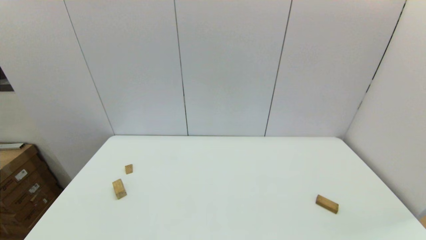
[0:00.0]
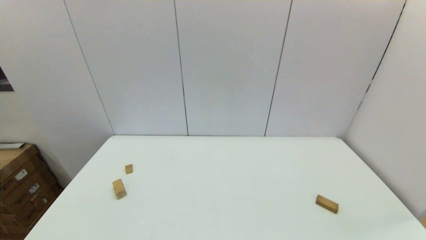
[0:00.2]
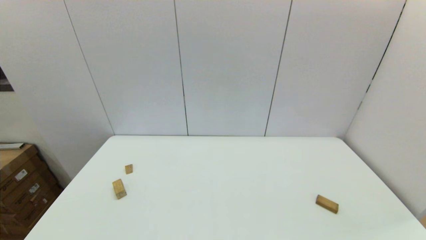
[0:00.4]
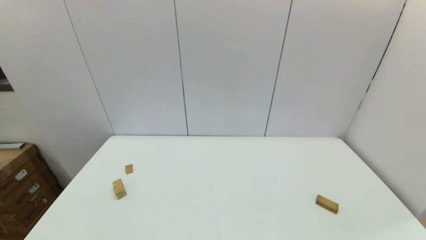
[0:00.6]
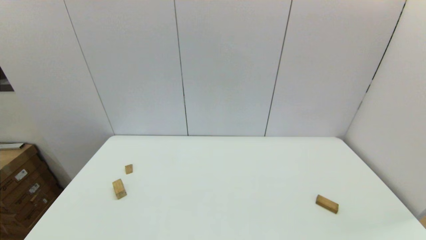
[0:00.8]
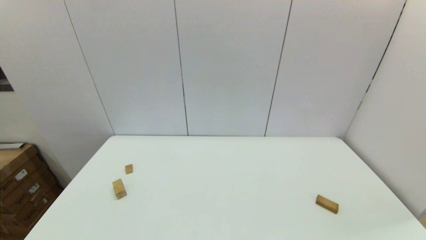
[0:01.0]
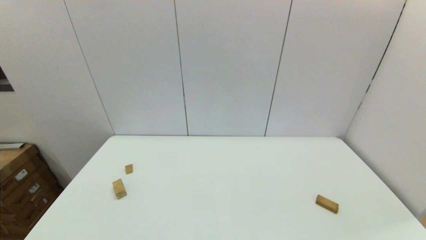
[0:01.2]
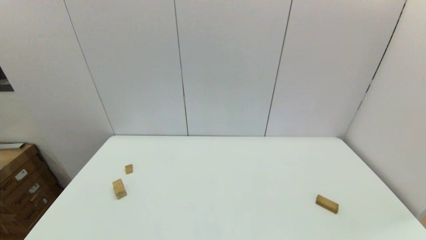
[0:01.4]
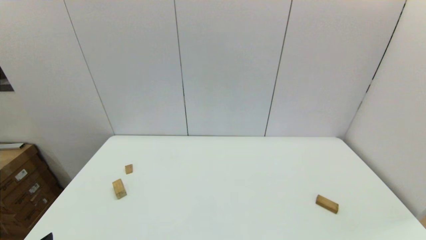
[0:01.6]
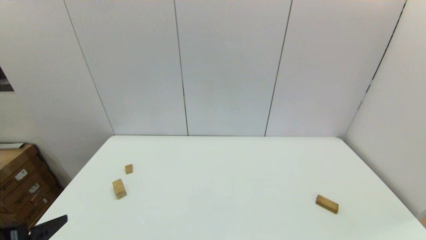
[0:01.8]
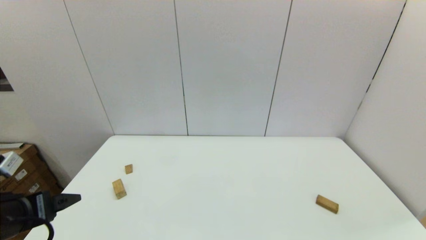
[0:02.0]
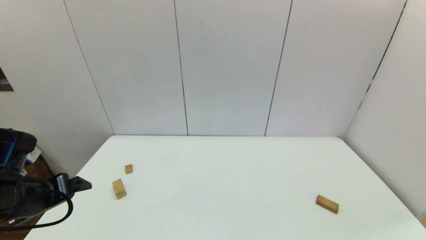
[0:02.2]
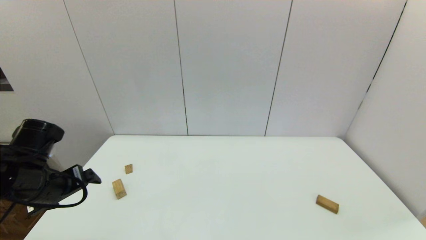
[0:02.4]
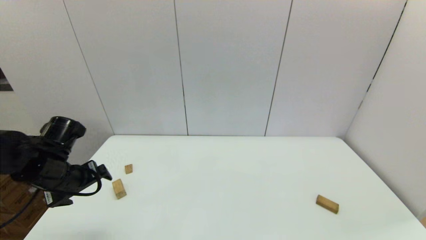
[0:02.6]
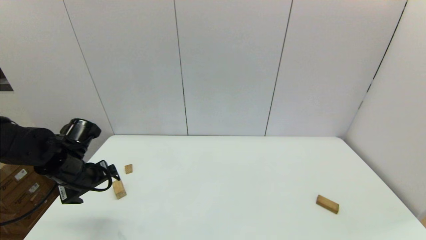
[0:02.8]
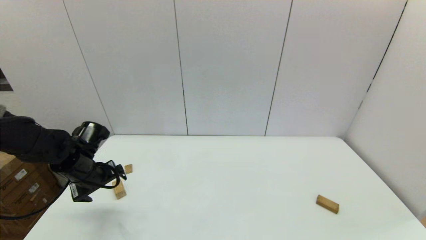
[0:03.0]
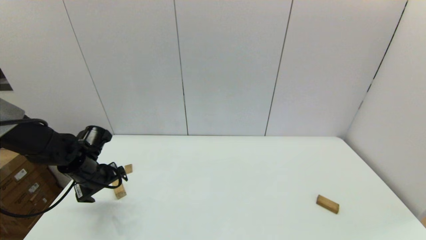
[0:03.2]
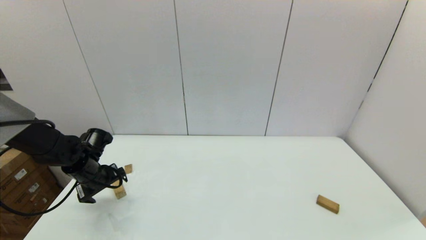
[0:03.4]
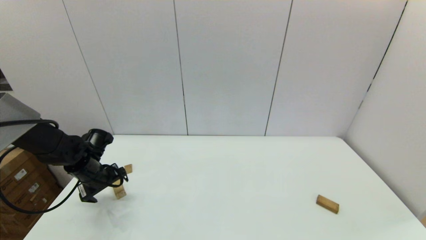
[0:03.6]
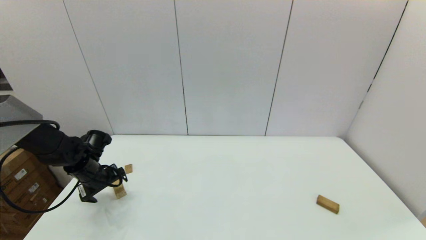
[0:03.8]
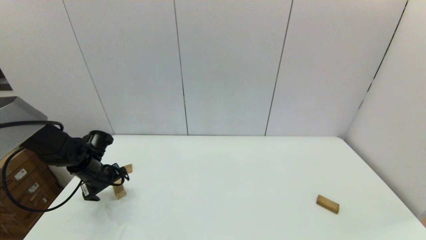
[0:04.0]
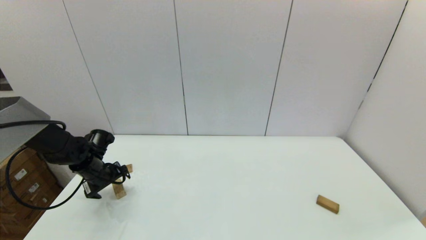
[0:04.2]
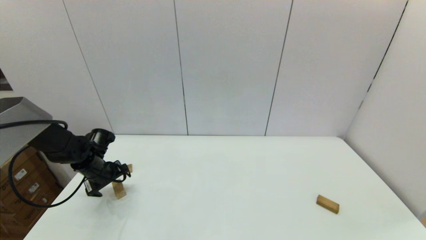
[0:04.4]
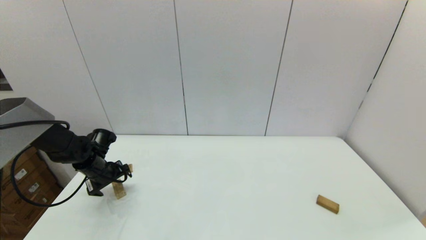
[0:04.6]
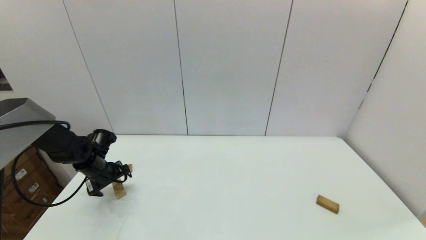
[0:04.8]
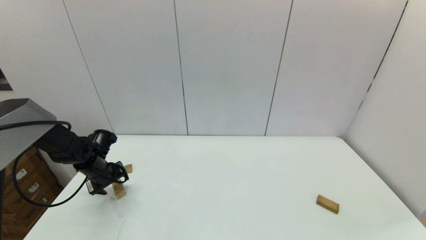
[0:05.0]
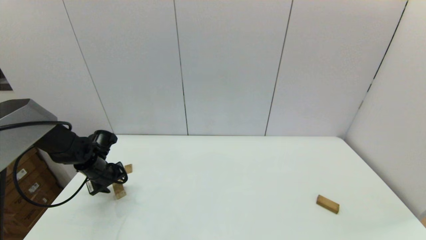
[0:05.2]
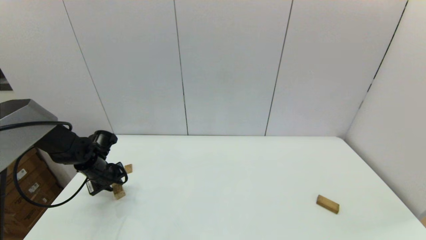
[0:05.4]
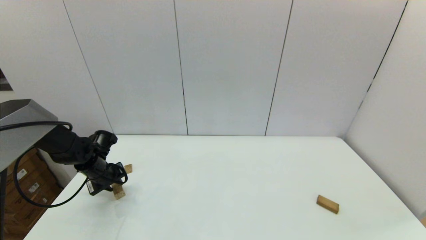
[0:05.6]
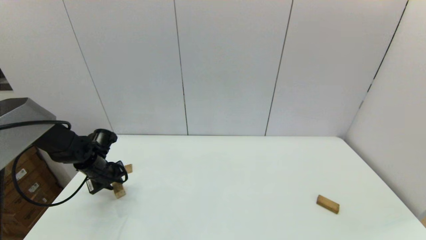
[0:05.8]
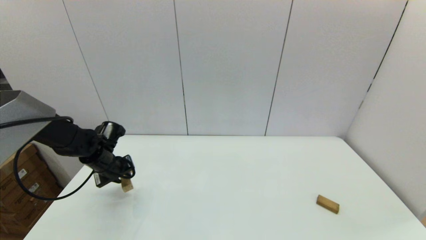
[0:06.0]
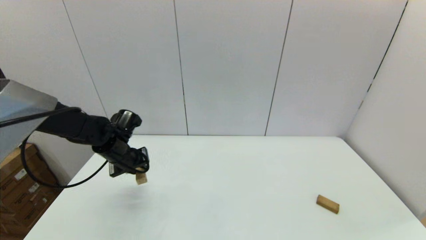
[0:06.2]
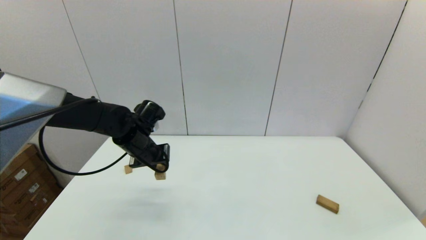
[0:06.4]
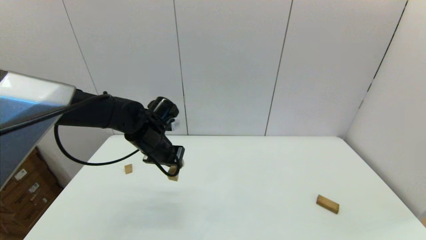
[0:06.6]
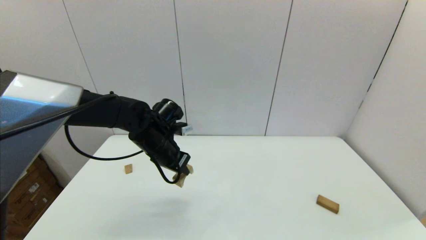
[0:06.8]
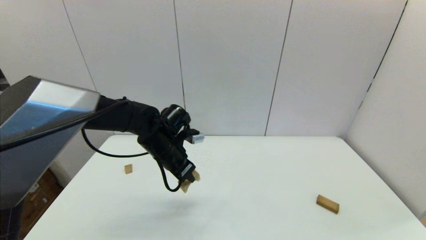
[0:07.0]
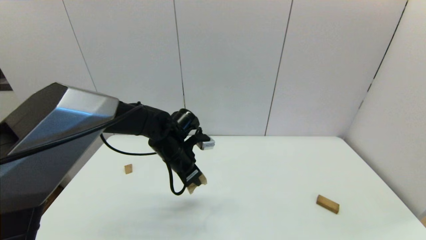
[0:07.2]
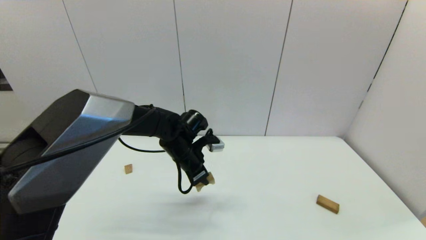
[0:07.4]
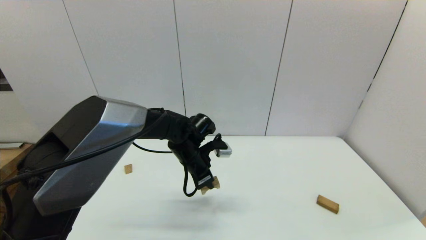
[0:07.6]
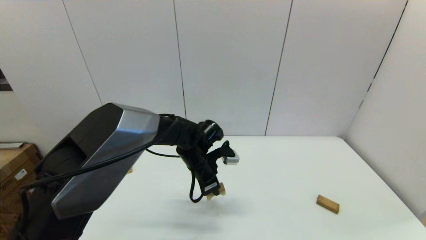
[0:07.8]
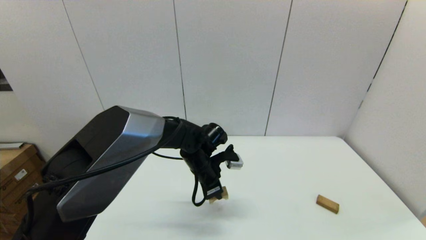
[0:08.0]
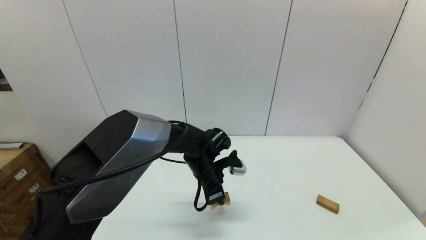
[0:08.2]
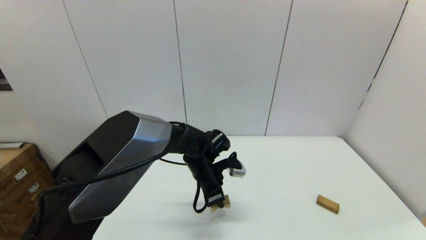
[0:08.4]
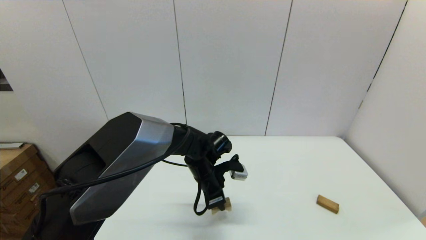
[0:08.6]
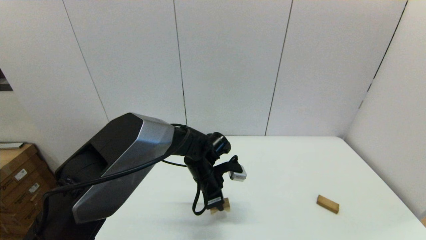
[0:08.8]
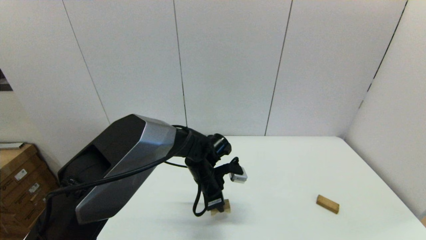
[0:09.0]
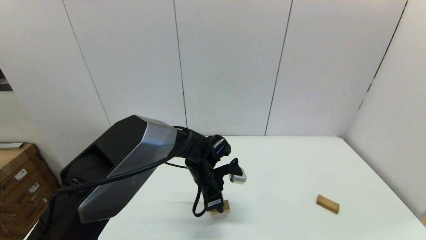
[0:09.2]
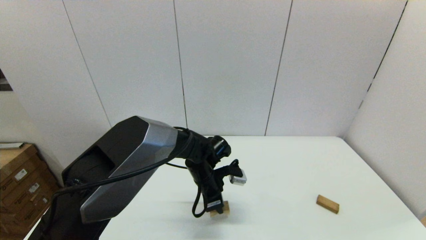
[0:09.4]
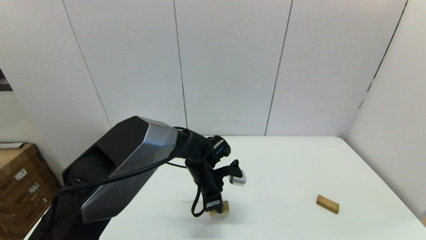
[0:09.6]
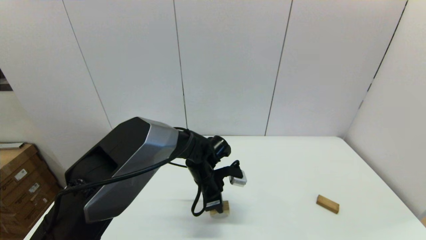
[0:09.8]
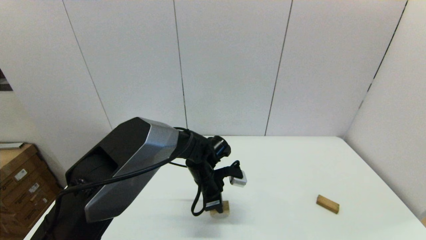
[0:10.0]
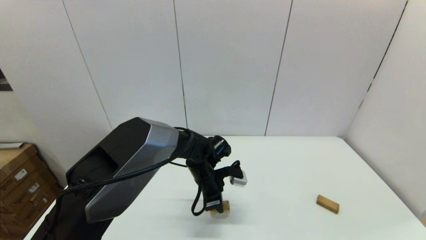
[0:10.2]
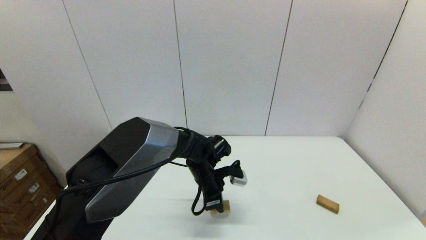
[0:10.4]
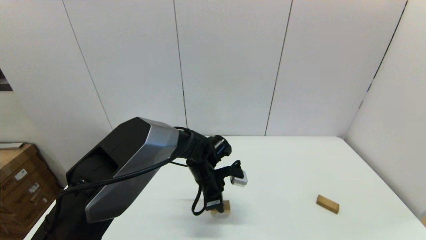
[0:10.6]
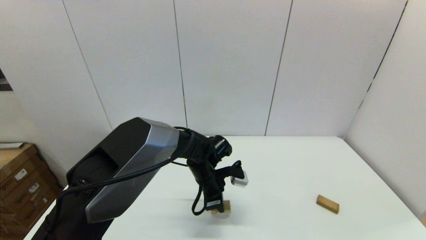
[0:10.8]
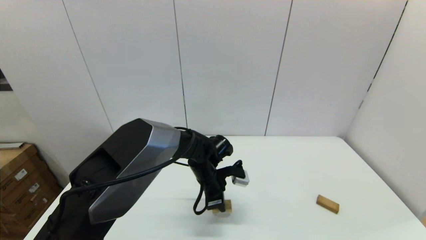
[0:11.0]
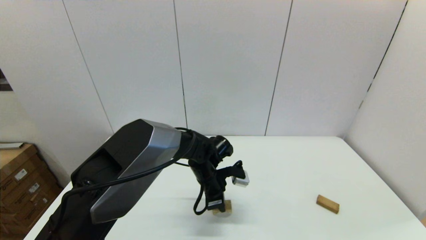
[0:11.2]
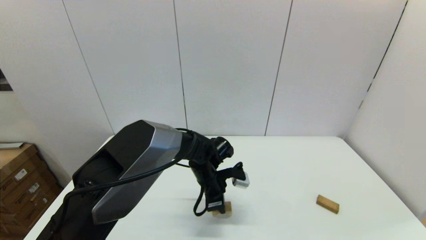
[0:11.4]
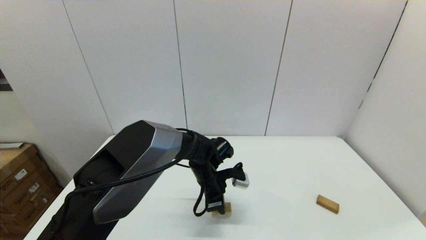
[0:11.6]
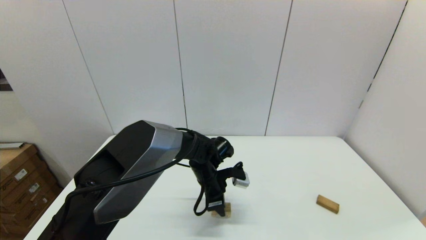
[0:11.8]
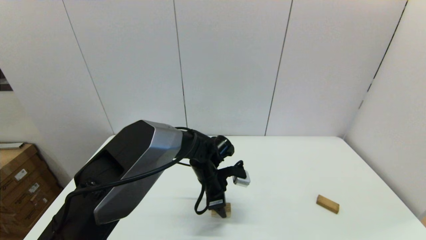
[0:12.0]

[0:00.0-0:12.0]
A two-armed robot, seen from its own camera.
Task of the whole recording: place the arched building blocks in the center of the table, set up the rectangular building blocks, and then set up the triangular building blocks.
Step, 0:01.6 to 0:05.2: Grasp the arch-shaped block with the left gripper.
Step, 0:05.6 to 0:11.8: Place the arch-shaped block in the center of view with the left gripper.
0:01.6 to 0:03.0: The left gripper travels forward by approximately 25 cm.
0:03.0 to 0:04.4: The left gripper is displaced downward and forward by about 10 cm.
0:04.4 to 0:06.0: The left gripper closes.
0:06.0 to 0:07.6: The left gripper travels to the right by some 25 cm.
0:07.6 to 0:09.0: The left gripper moves some 5 cm.
0:09.0 to 0:10.4: There are only small adjustments of the grippers.
0:10.4 to 0:12.0: The left gripper opens.

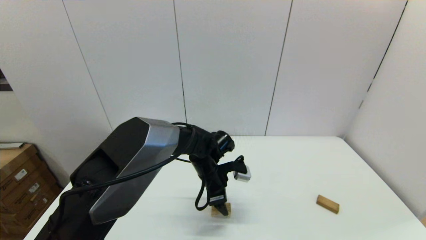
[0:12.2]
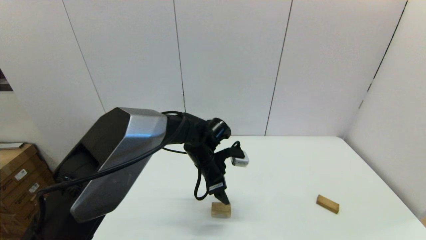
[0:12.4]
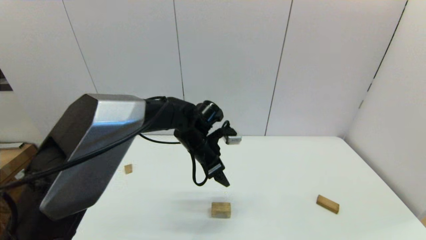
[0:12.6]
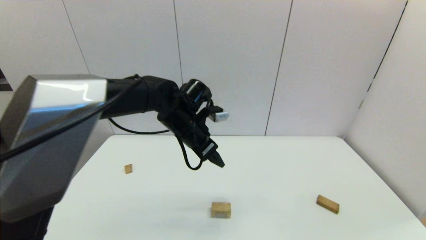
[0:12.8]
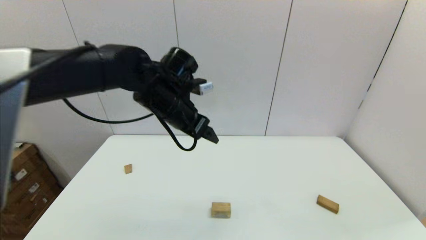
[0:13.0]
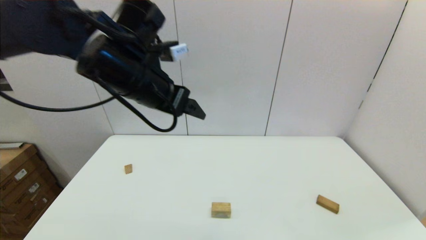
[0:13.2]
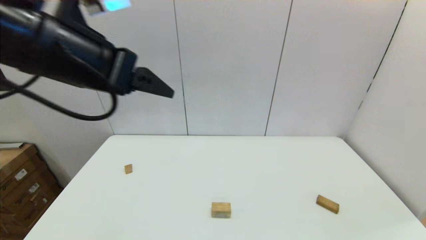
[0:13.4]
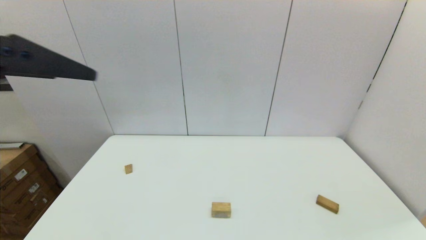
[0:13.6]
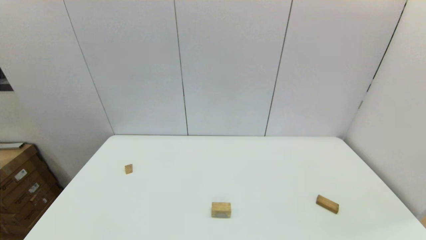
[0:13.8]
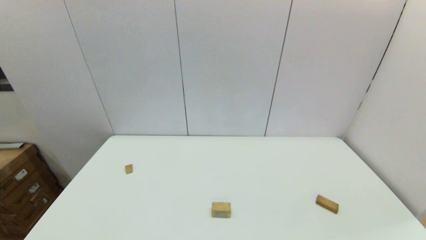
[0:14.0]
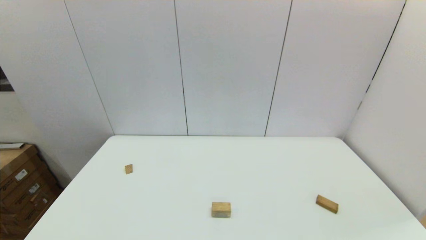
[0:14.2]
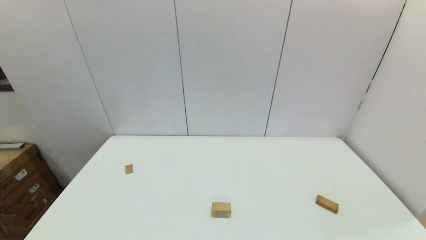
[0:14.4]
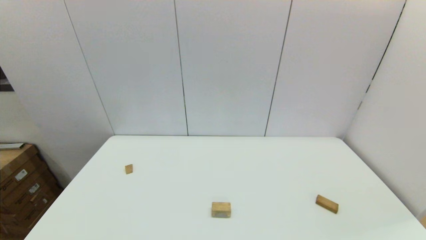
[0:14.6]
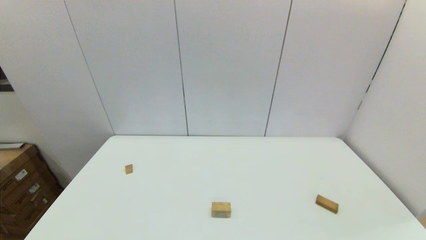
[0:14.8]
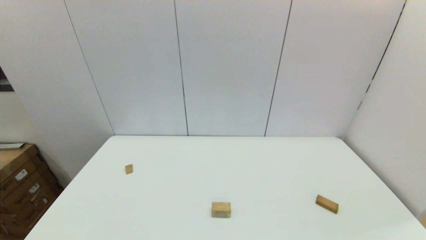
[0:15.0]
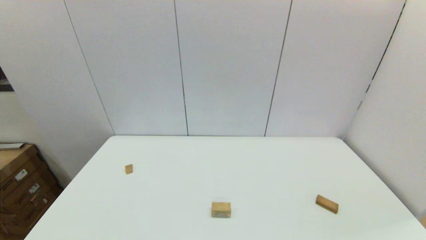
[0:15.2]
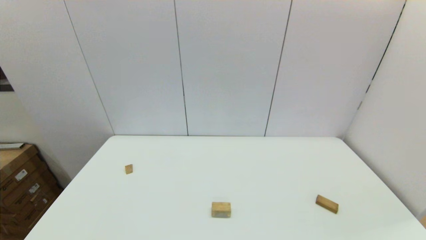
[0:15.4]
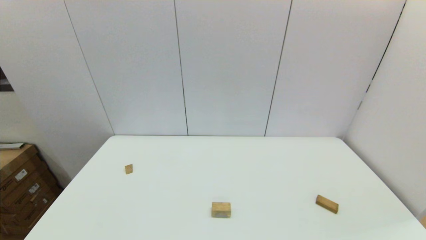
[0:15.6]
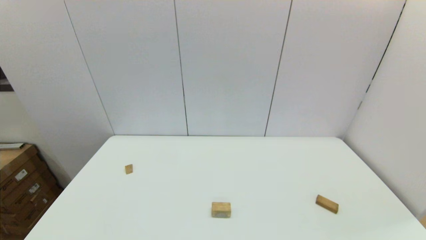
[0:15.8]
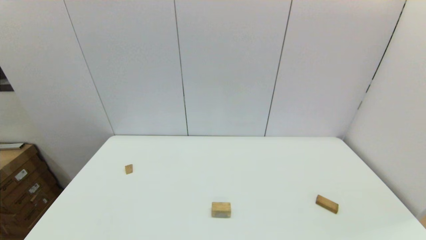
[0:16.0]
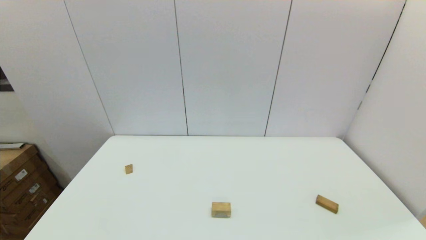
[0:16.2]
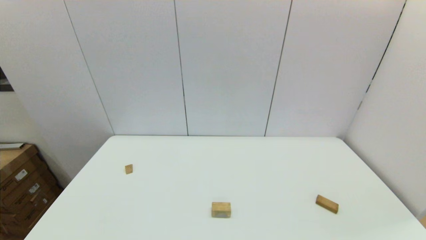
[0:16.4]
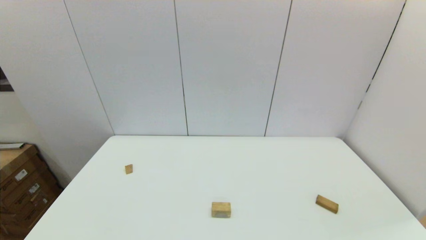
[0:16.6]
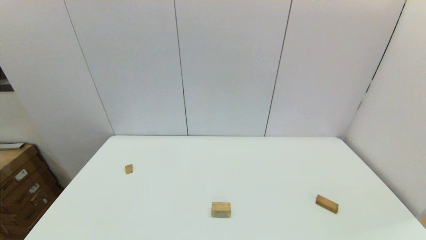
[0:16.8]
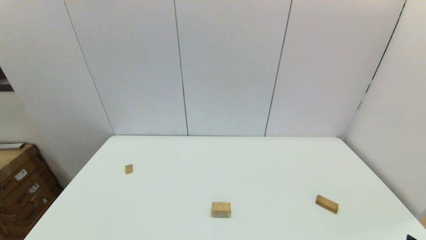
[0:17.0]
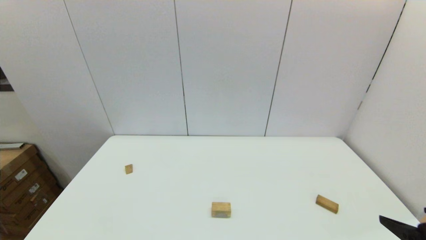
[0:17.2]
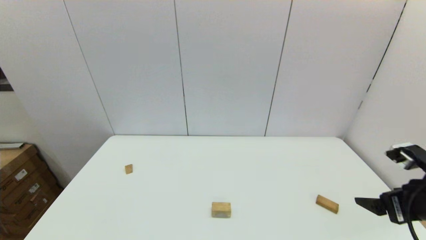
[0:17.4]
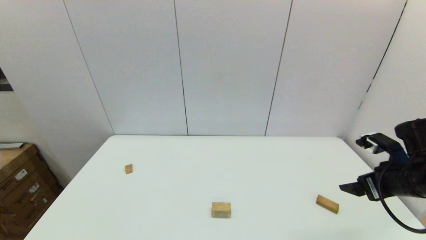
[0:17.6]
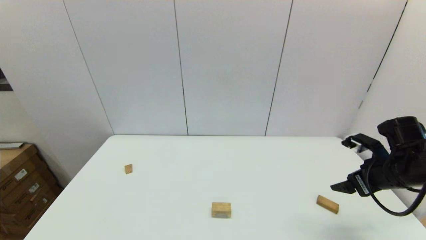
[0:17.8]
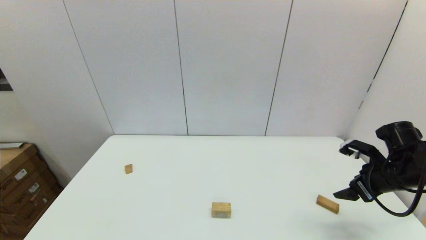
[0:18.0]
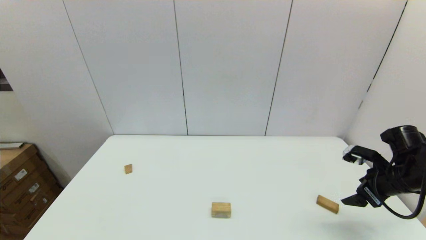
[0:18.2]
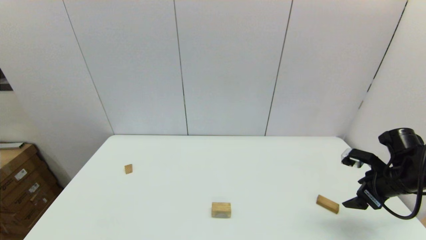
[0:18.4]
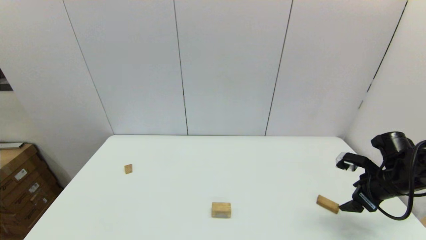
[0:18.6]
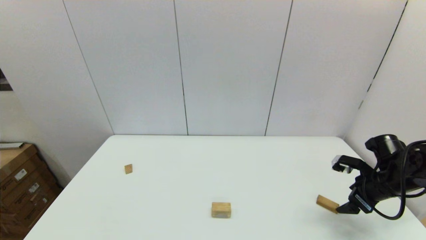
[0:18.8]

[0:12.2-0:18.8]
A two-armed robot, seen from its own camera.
Task of the whole recording: place the arched building blocks in the center of the table, set up the rectangular building blocks, and then set up the triangular building blocks.
0:12.2 to 0:13.8: The left gripper heads upward, backward and to the left, covering roughly 50 cm.
0:15.4 to 0:17.2: The right gripper is displaced forward and upward by about 15 cm.
0:17.2 to 0:18.8: The right gripper heads forward and downward, covering some 20 cm.
